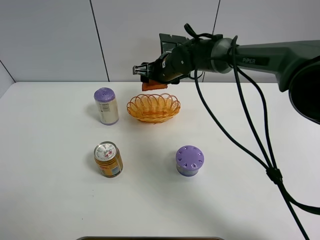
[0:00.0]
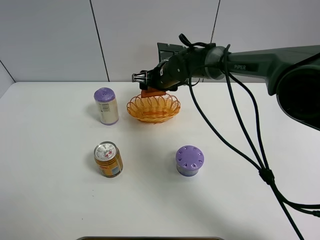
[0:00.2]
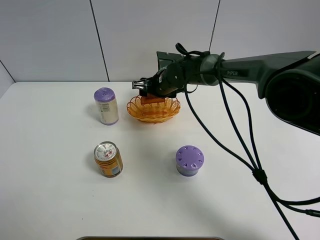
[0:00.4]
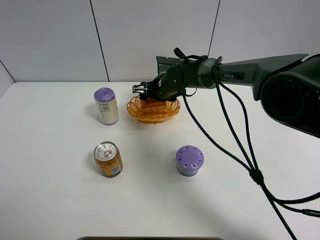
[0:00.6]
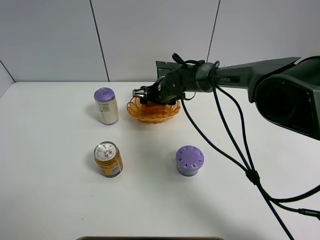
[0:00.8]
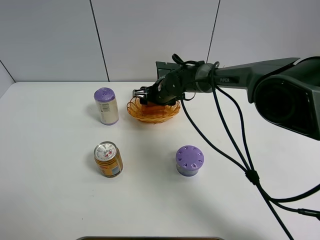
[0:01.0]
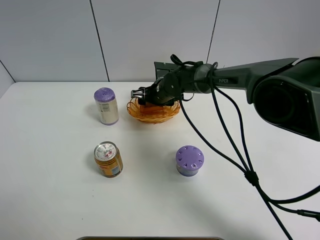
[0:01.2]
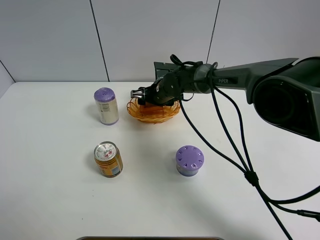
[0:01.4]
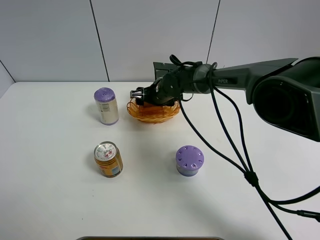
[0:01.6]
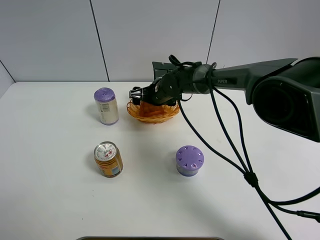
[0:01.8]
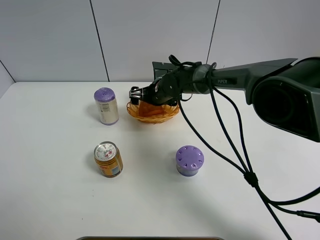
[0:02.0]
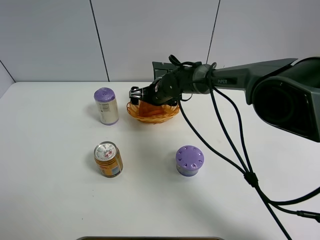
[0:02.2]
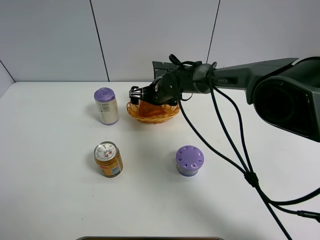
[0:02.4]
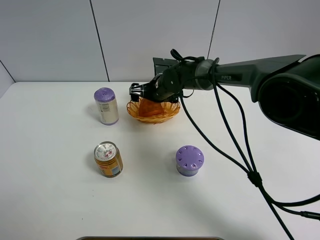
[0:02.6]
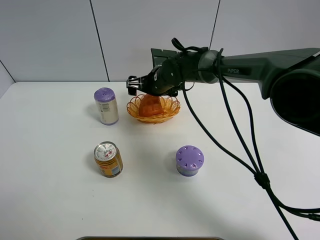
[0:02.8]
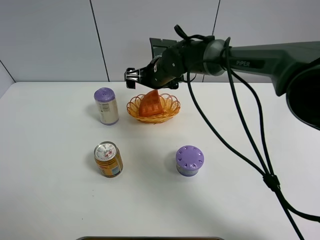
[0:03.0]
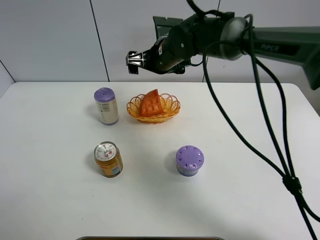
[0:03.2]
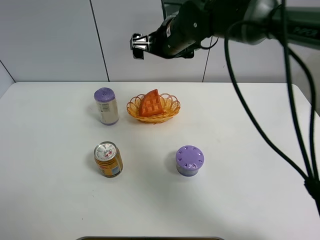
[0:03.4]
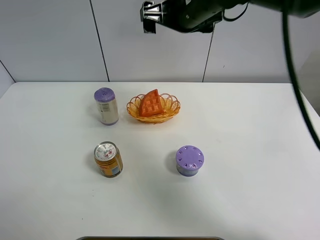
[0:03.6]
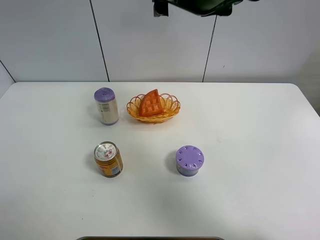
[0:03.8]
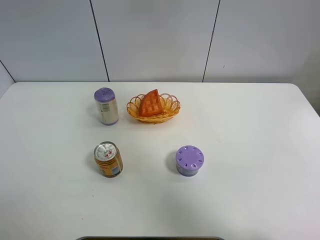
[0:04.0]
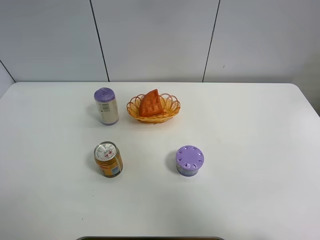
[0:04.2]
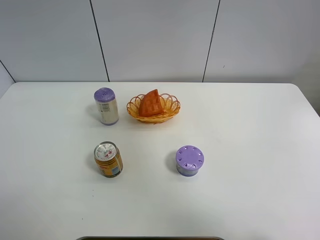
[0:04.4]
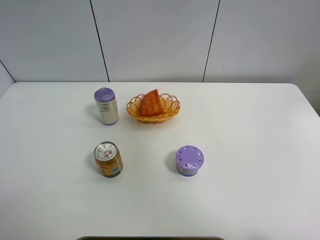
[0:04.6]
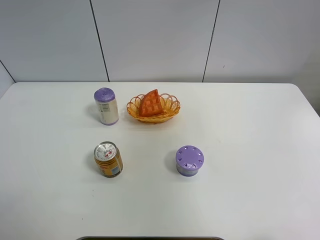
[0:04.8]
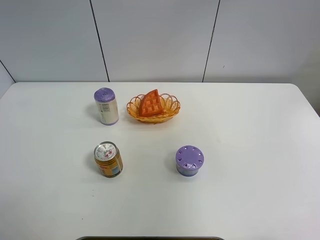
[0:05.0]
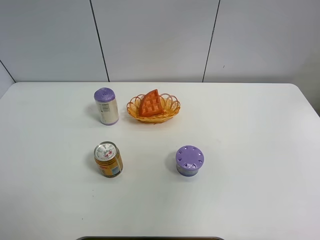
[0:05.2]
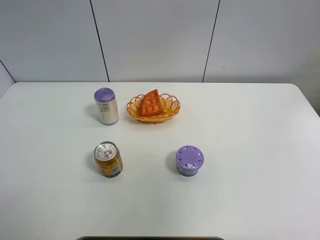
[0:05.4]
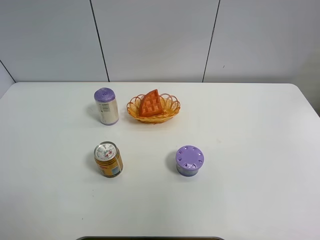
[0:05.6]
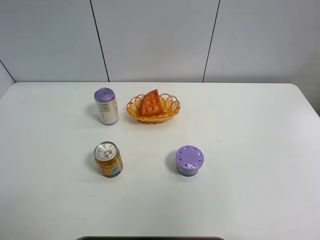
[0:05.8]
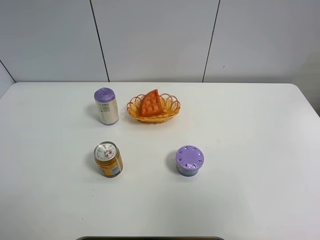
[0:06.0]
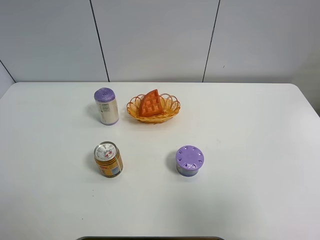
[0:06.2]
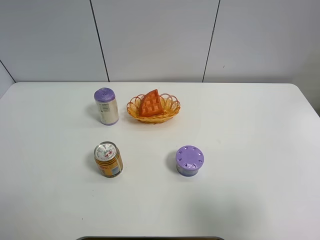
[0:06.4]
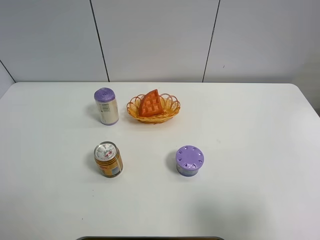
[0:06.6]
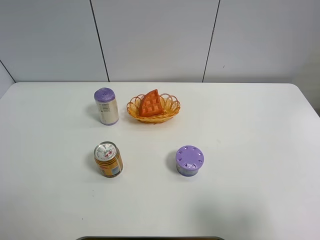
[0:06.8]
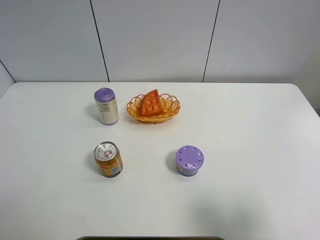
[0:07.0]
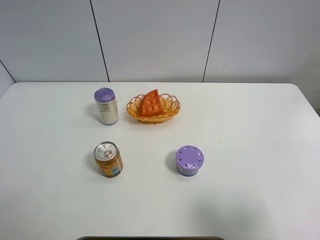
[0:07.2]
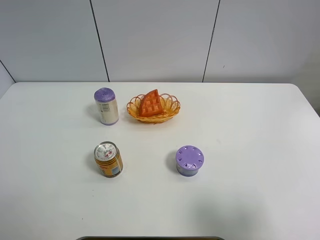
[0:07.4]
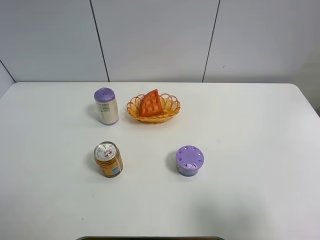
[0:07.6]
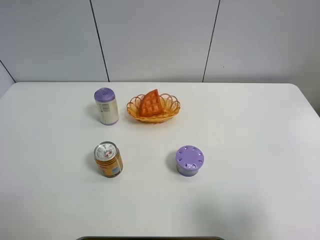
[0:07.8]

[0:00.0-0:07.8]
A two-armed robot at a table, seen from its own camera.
Task of the whole recording: Put the bakery in the basket.
Step, 0:00.0 to 0:03.2: Place the bread in the basket with right gripper.
0:00.0 to 0:01.6: The right gripper shifts roughly 5 cm downward.
0:01.6 to 0:03.2: The right gripper is displaced upward by roughly 15 cm, and opens.
0:03.2 to 0:04.6: The right gripper goes some 40 cm upward, backward and to the right.
0:04.6 to 0:06.2: The right gripper goes some 25 cm downward and backward.
0:06.2 to 0:07.8: The right gripper is displaced downward by some 5 cm.
